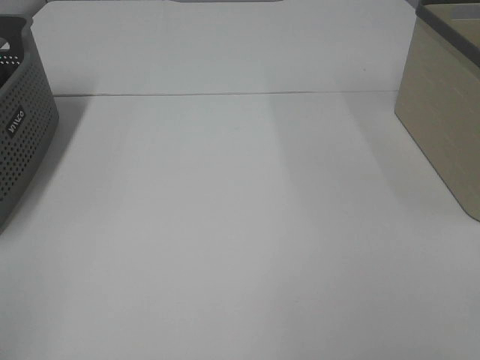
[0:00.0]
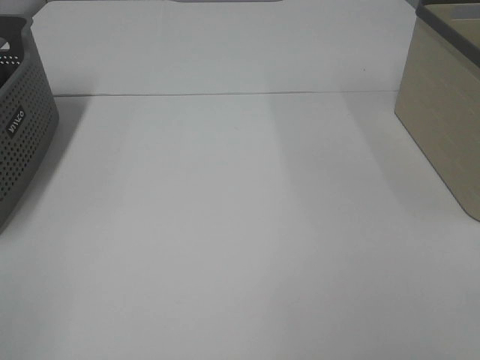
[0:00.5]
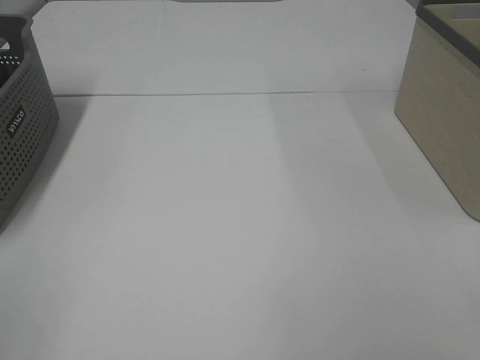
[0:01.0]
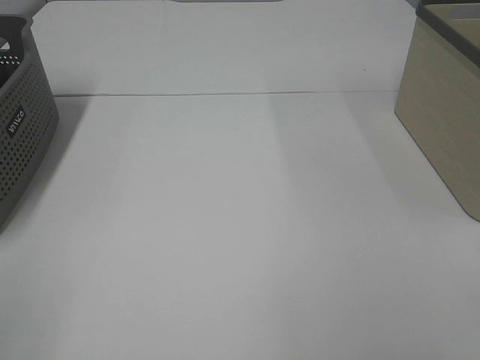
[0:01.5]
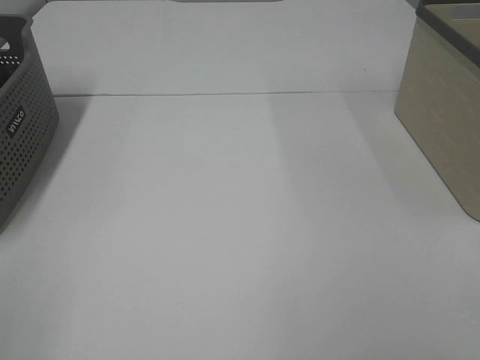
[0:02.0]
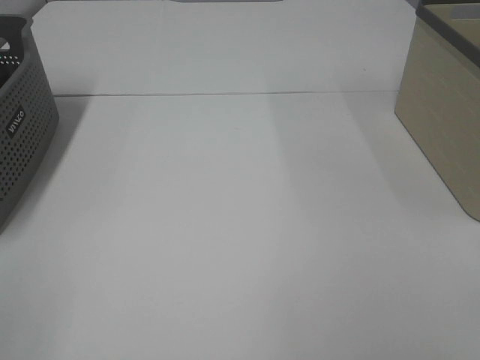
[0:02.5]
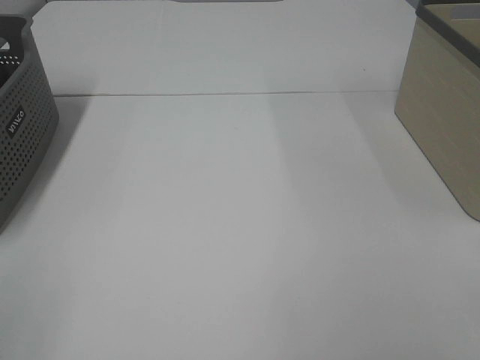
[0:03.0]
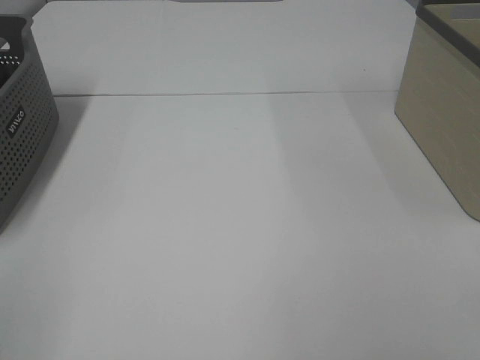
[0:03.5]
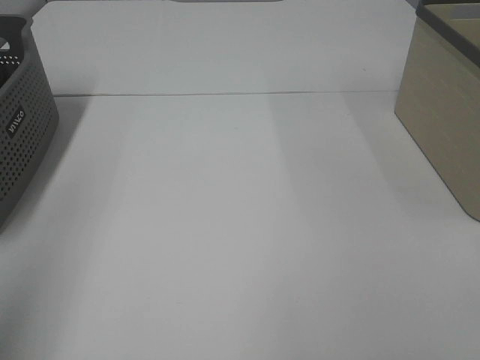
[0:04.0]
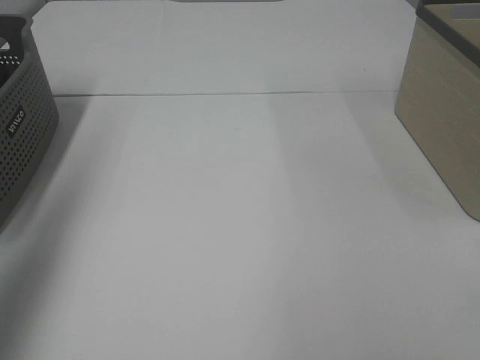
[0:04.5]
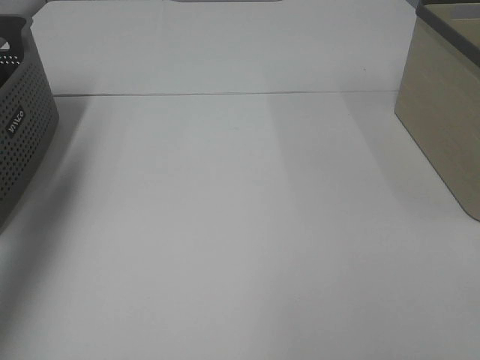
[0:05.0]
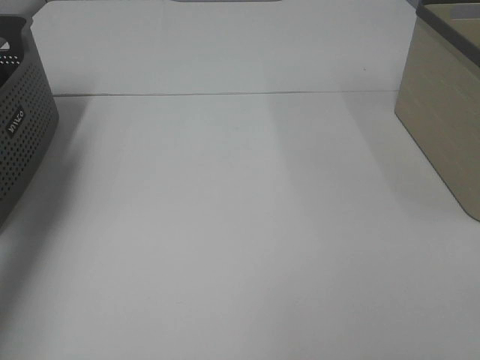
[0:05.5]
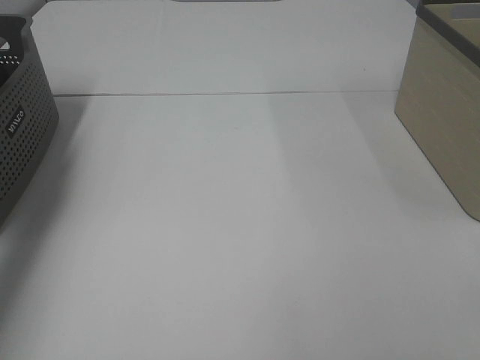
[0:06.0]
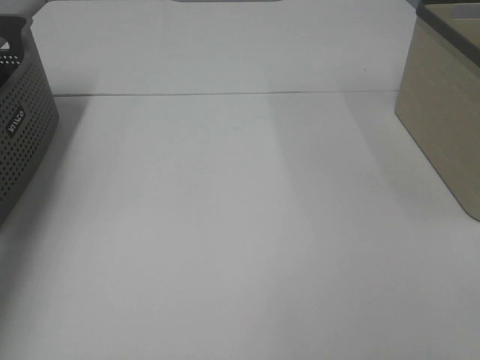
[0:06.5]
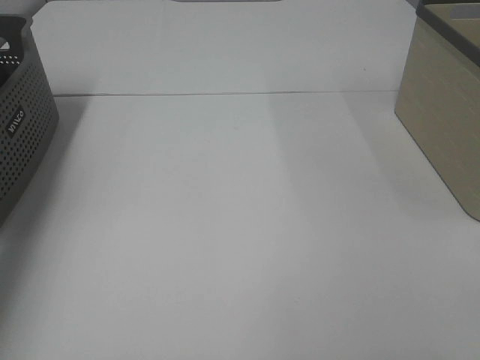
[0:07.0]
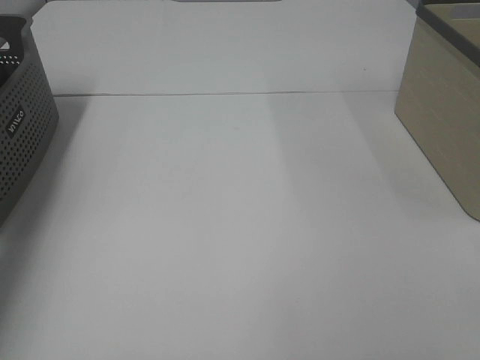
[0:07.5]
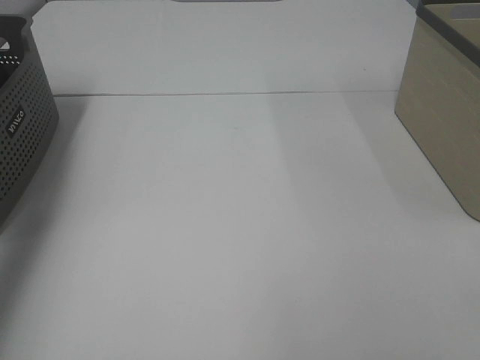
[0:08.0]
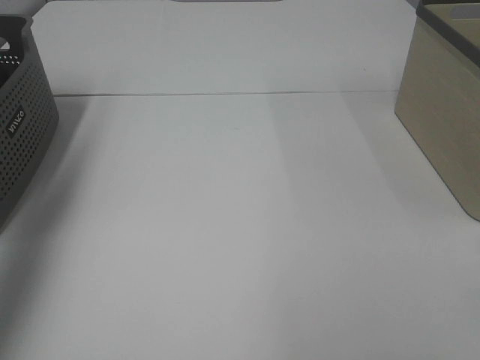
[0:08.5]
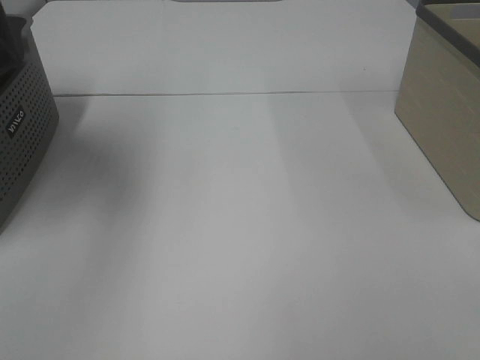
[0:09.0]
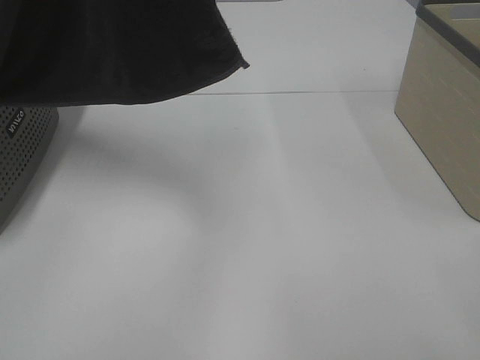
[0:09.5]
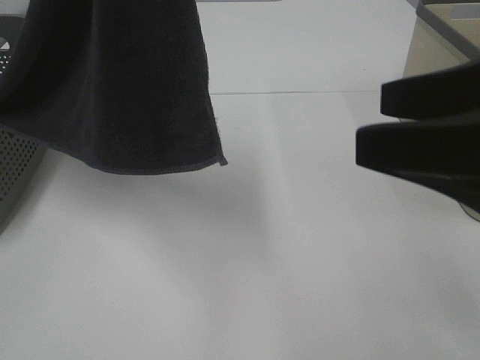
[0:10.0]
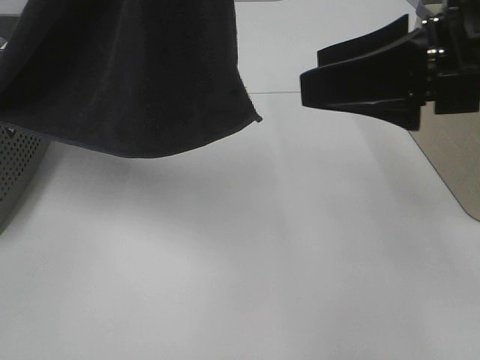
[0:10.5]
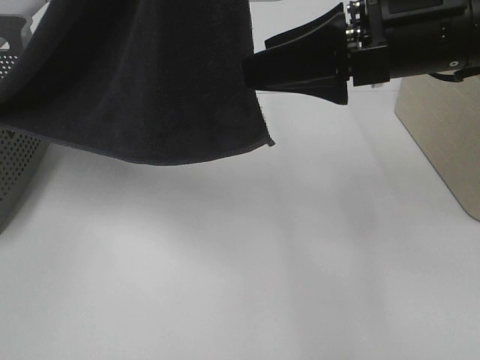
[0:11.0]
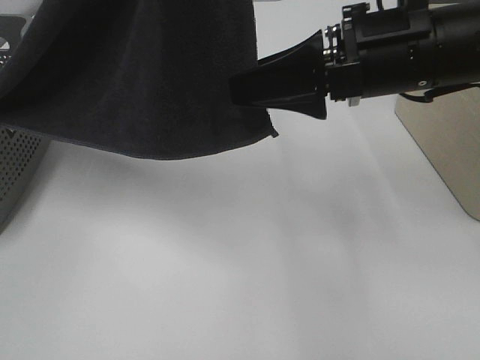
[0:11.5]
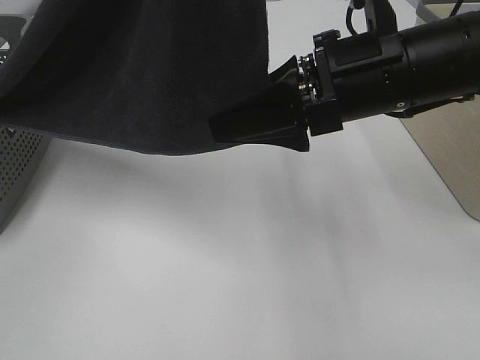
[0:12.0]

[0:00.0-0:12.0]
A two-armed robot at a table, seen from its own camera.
Task of the whole recording: Remove the towel and place it.
0:02.0 to 0:04.0: The left gripper travels forward and upward by approximately 15 cm.
0:04.0 to 0:06.0: The left gripper goes roughly 30 cm forward.
0:08.0 to 0:10.0: The right gripper is displaced forward and to the left by roughly 15 cm. The left gripper heads to the right, backward and upward, covering about 35 cm.
0:10.0 to 0:12.0: The right gripper moves forward and to the left, some 15 cm.

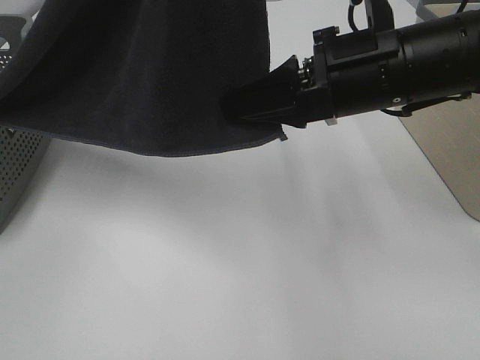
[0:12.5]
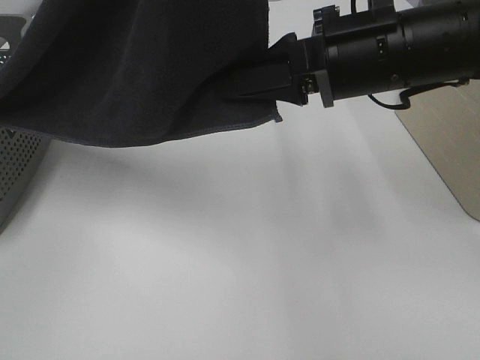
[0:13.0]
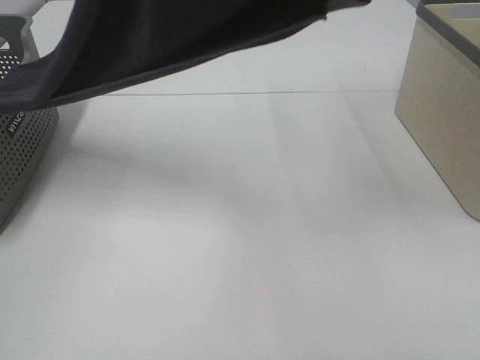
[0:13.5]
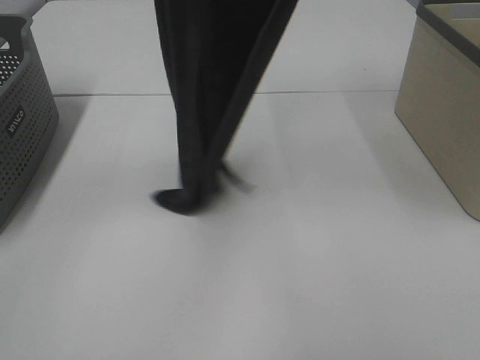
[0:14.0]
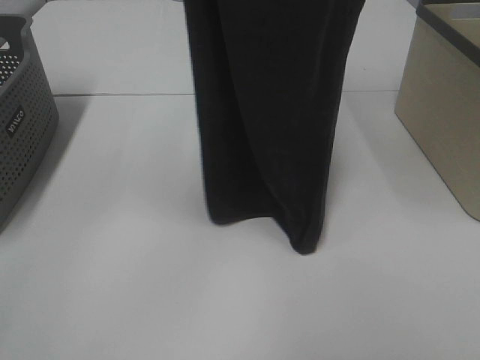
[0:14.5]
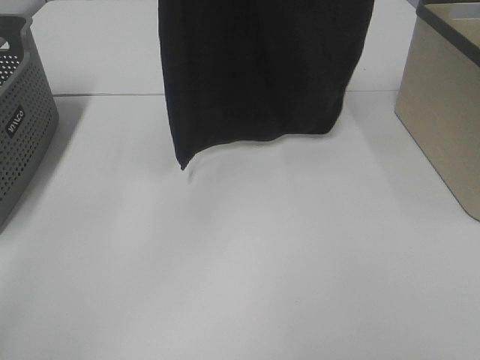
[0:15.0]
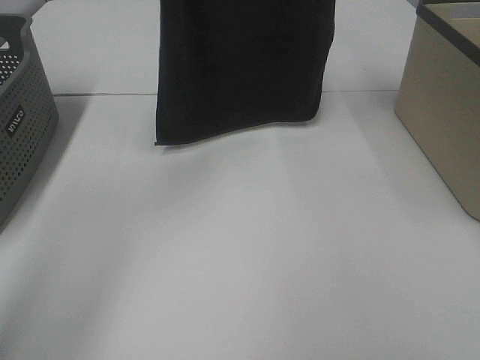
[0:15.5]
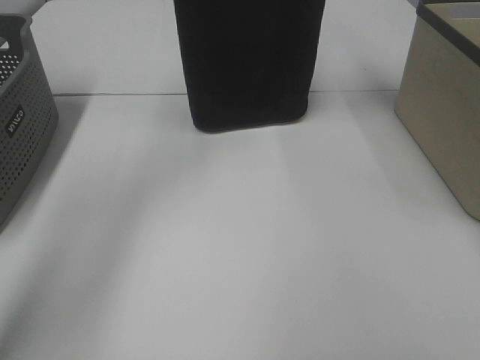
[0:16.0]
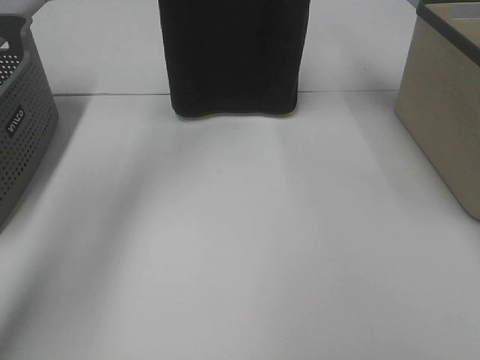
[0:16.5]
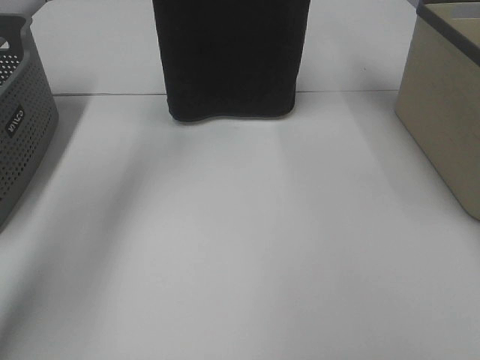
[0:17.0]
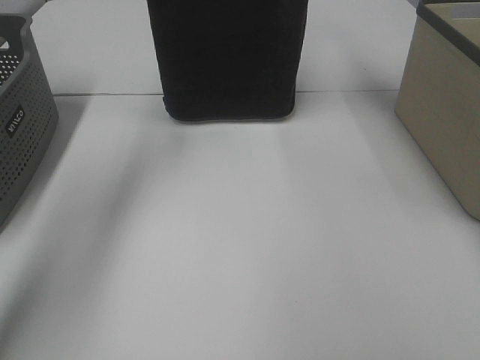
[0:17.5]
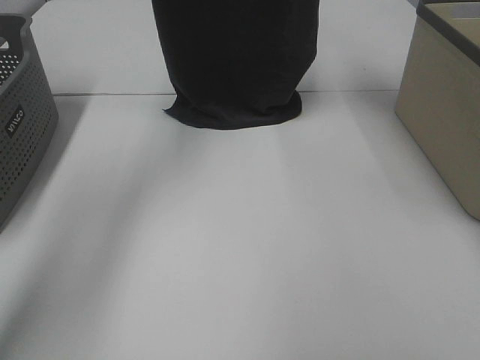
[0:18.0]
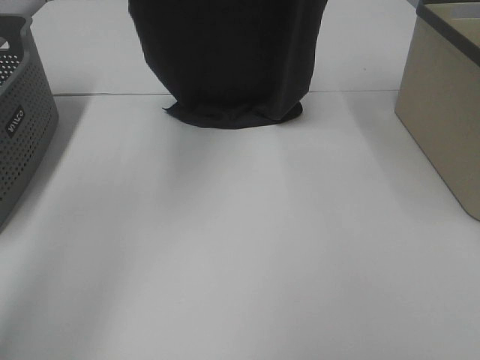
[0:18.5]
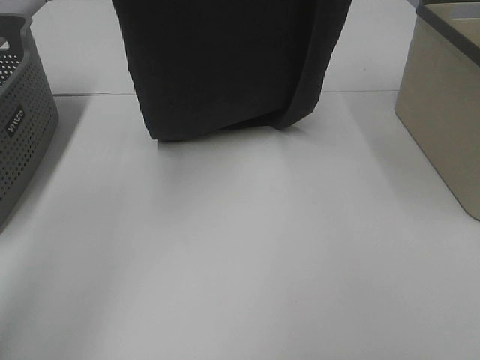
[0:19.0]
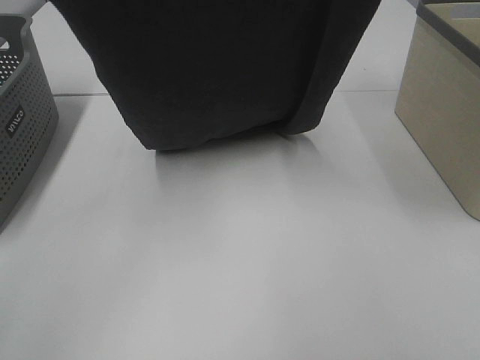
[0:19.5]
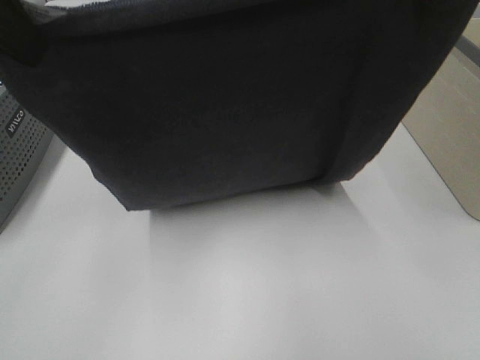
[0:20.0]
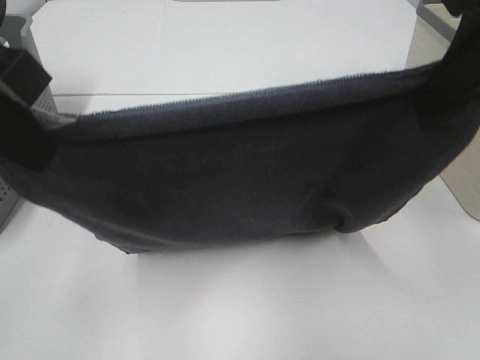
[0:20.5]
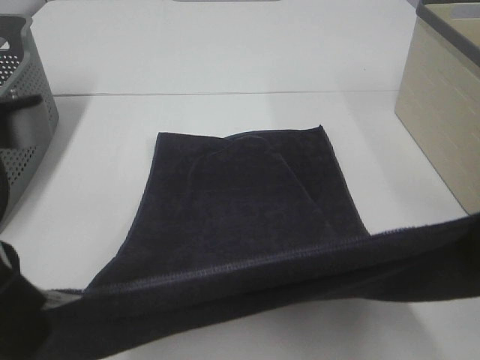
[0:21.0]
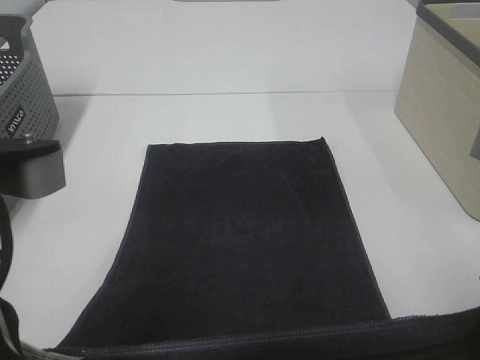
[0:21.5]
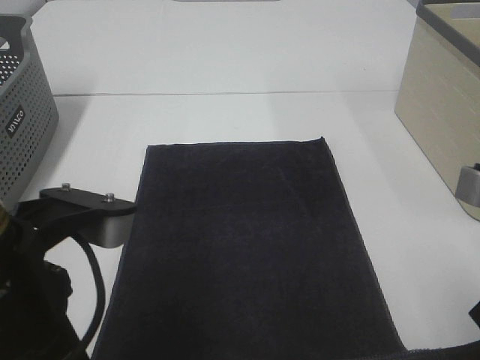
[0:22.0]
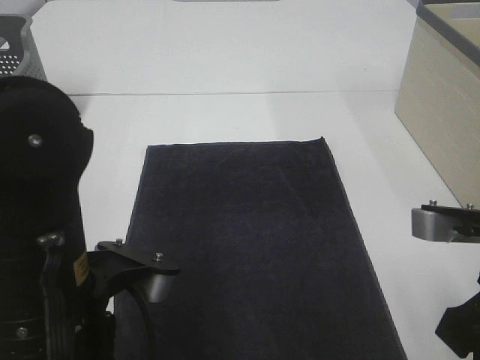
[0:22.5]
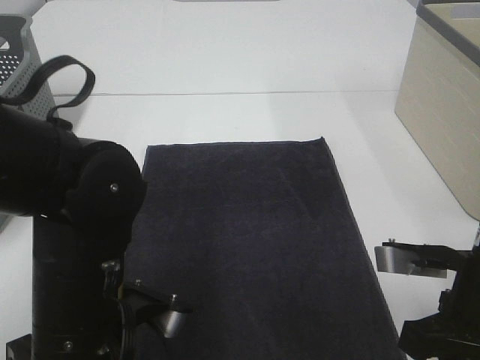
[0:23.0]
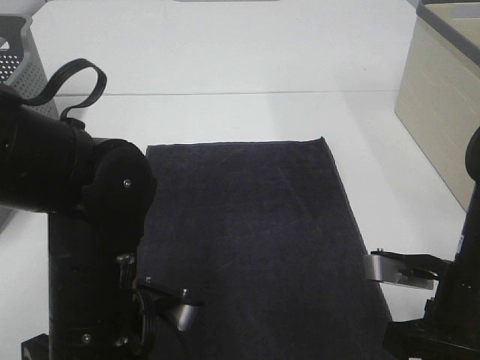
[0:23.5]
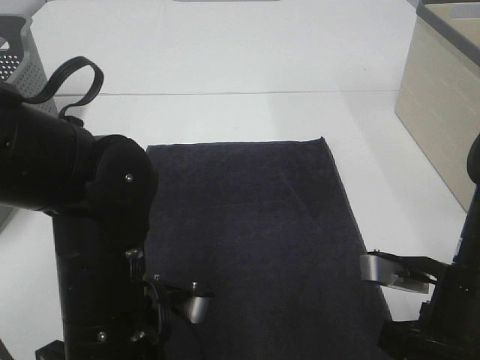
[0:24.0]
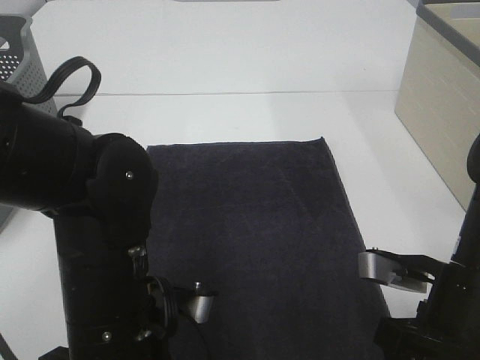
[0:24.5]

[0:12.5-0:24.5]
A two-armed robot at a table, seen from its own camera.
Task of the whole recording: Remove the towel and place it.
Step, 0:13.5 to 0:19.0: Left hand: spread the grey towel flat on the table.
Step, 0:13.5 to 0:19.0: Right hand: spread the grey towel flat on the table.
0:12.5 to 0:14.5: The left gripper travels forward and to the left by roughly 10 cm, while the right gripper travels upward by roughly 30 cm.
0:14.5 to 0:16.5: The left gripper shifts about 20 cm forward, while the right gripper is displaced forward by about 10 cm.
0:16.5 to 0:18.5: Both grippers move backward, about 5 cm.
0:18.5 to 0:20.5: The two grippers go roughly 25 cm backward and downward.
0:20.5 to 0:22.5: The left gripper shifts roughly 20 cm downward, to the right and backward. The right gripper moves downward, approximately 15 cm.
0:22.5 to 0:24.5: The left gripper moves some 5 cm, and opens. The right gripper is displaced downward by some 5 cm, and opens.

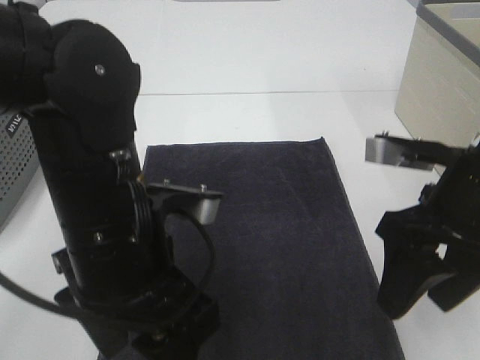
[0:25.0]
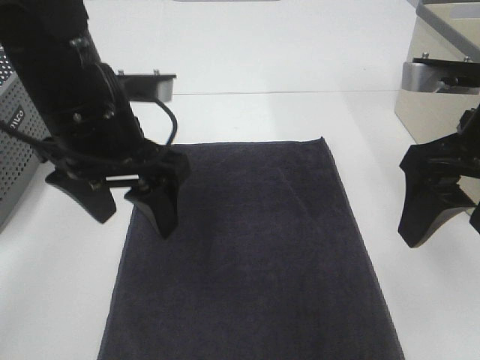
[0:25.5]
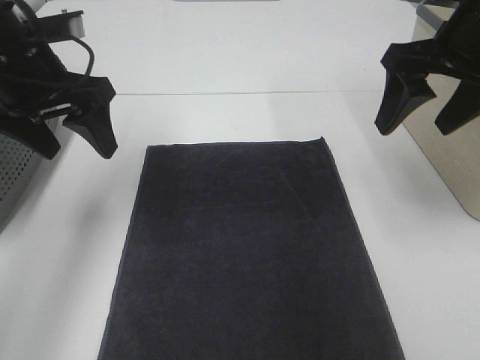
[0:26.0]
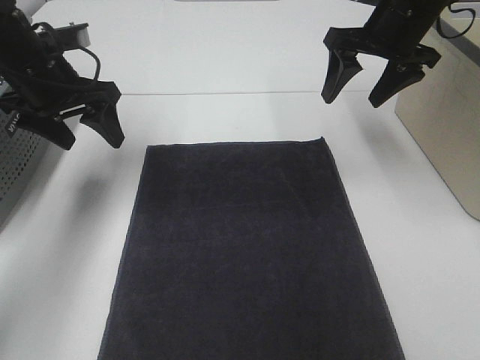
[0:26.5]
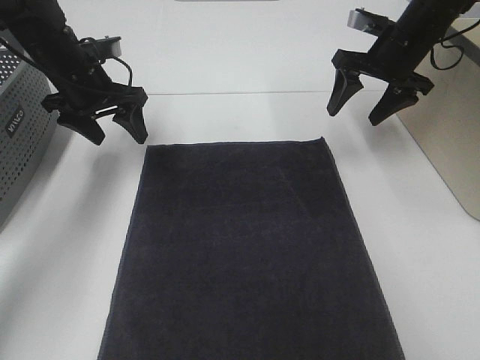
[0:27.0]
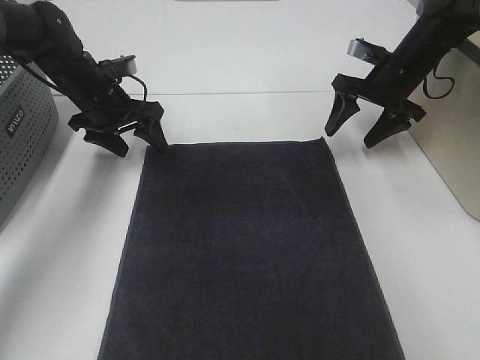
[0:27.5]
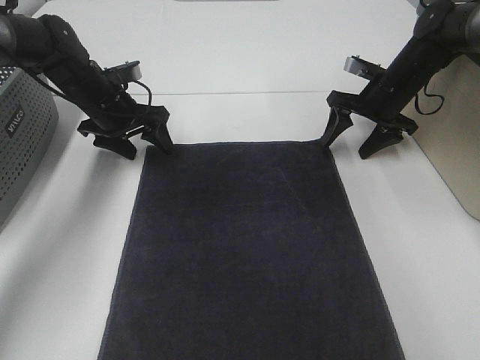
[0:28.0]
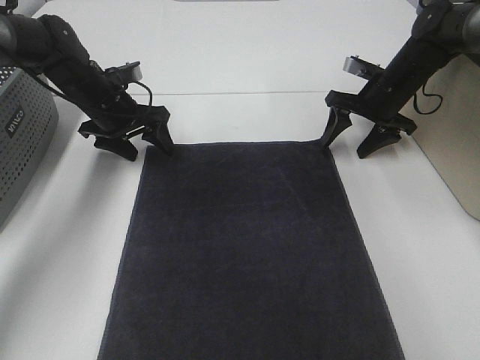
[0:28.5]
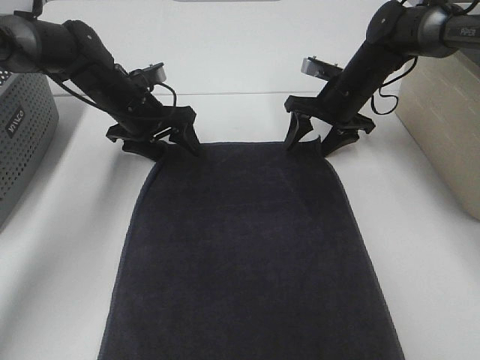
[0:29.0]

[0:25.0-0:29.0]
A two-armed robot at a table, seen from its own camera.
Task of the whole recording: Remove the towel and place it.
Step, 0:25.0 to 0:27.5: Left hand:adjust the gray towel.
Step, 0:25.0 to 0:27.5: Right hand:adjust the gray towel.
0:25.0 to 0:27.0: The left gripper shifts approximately 30 cm forward and to the left, while the right gripper is displaced forward by approximately 25 cm.
0:27.0 to 0:29.0: The left gripper travels downward and to the right by roughly 10 cm. Meanwhile the right gripper moves downward and to the left, some 10 cm.
